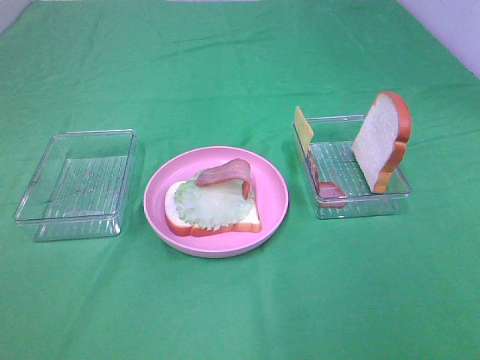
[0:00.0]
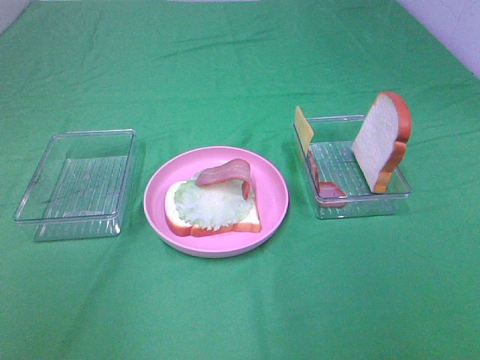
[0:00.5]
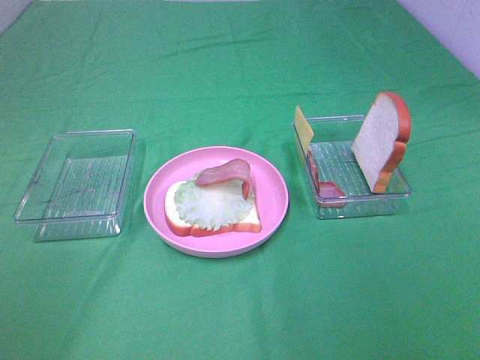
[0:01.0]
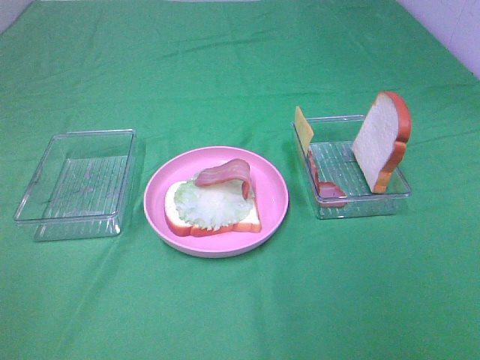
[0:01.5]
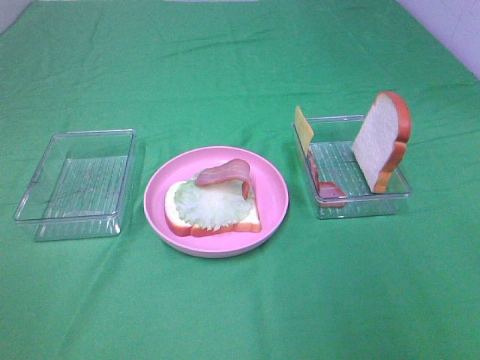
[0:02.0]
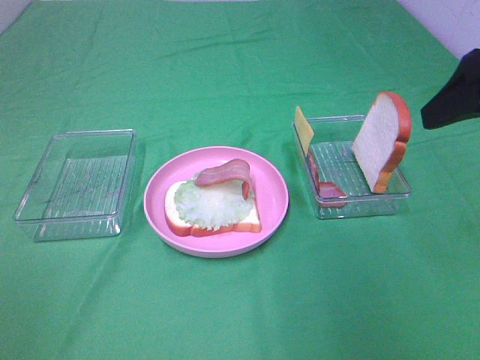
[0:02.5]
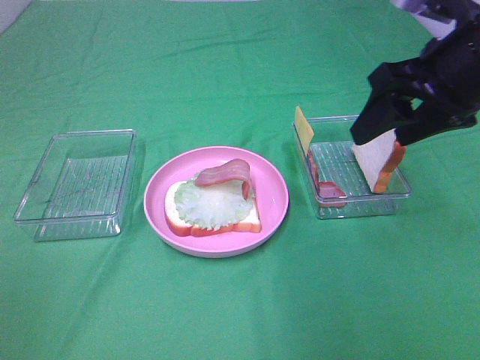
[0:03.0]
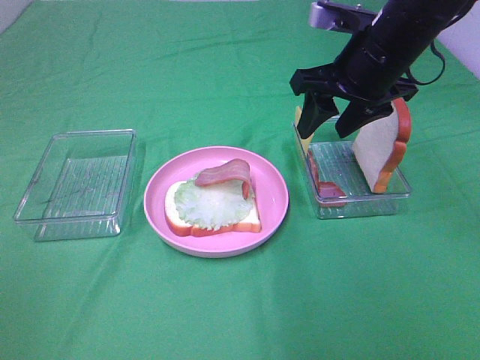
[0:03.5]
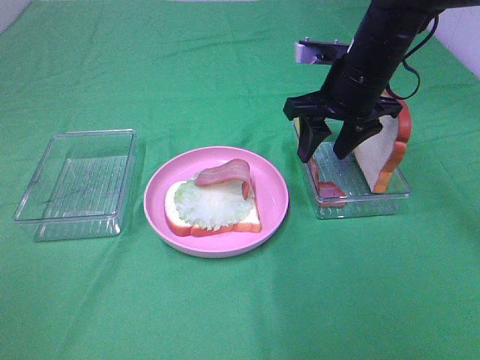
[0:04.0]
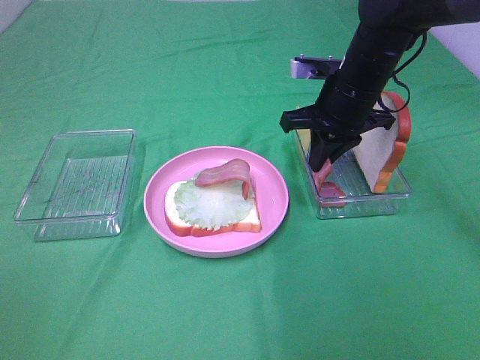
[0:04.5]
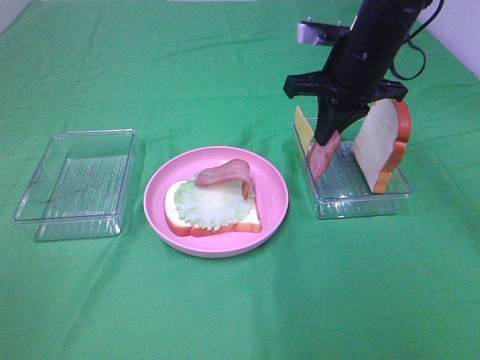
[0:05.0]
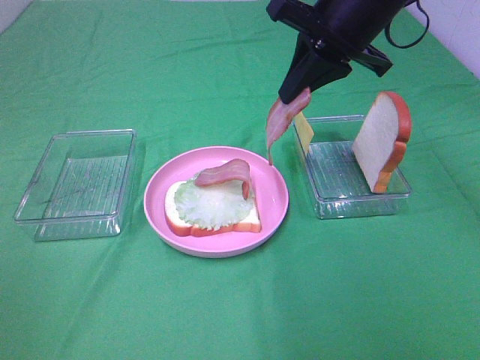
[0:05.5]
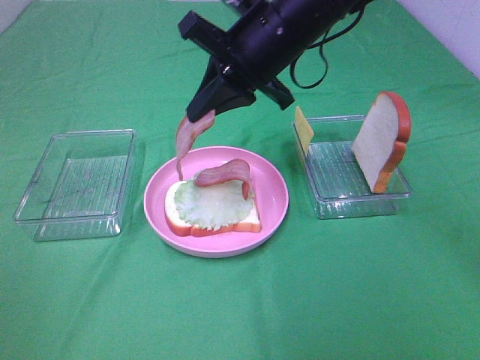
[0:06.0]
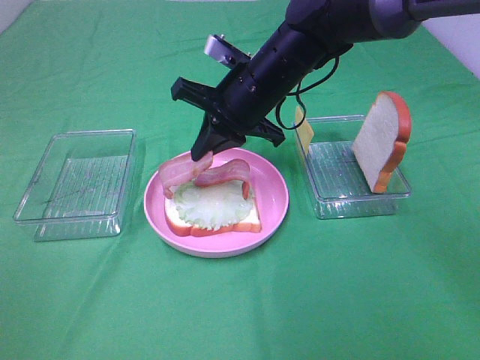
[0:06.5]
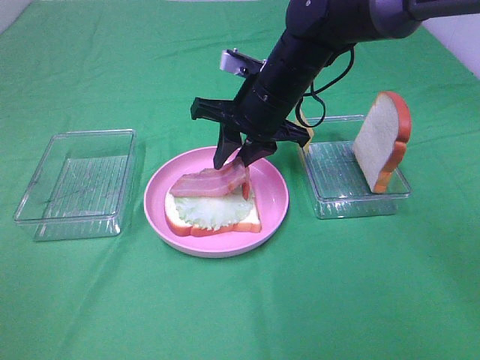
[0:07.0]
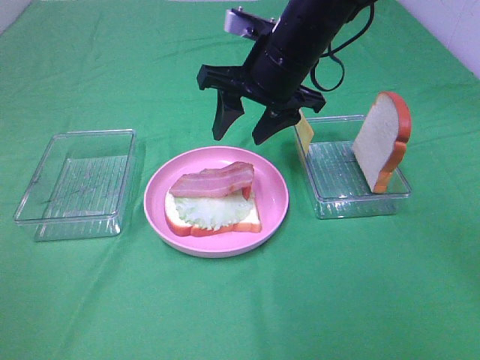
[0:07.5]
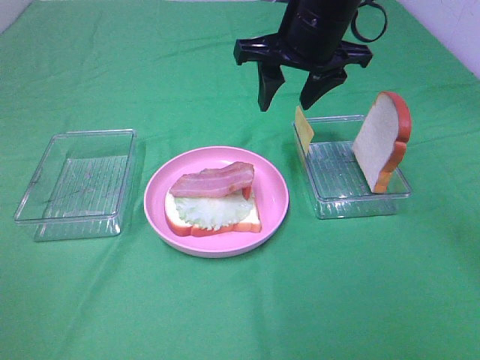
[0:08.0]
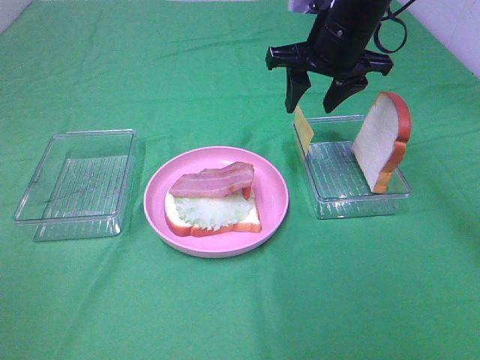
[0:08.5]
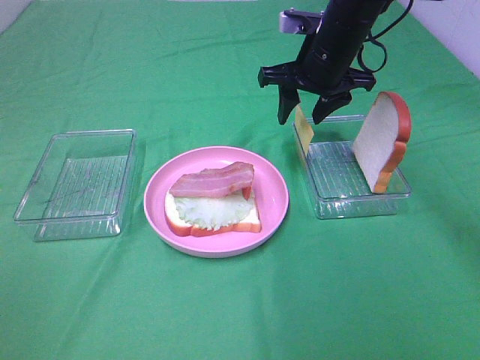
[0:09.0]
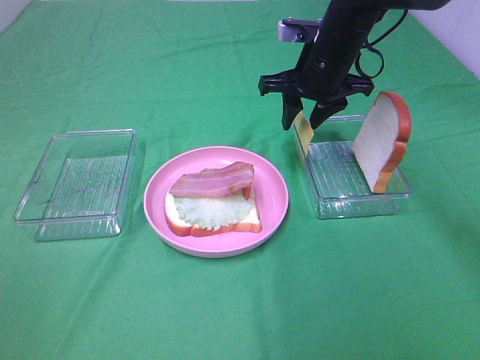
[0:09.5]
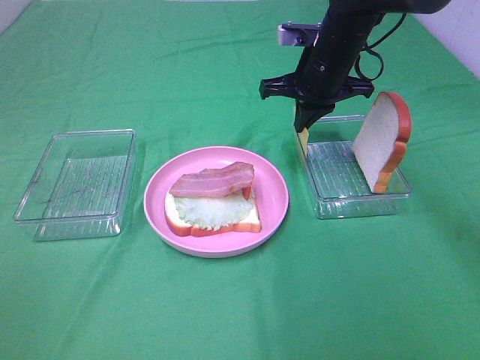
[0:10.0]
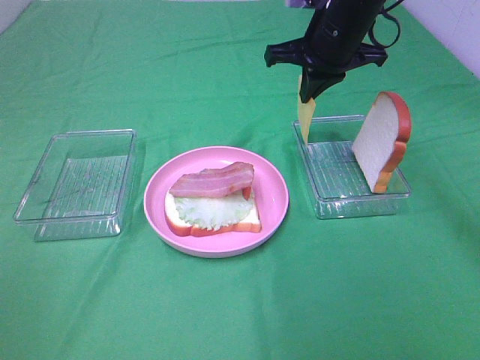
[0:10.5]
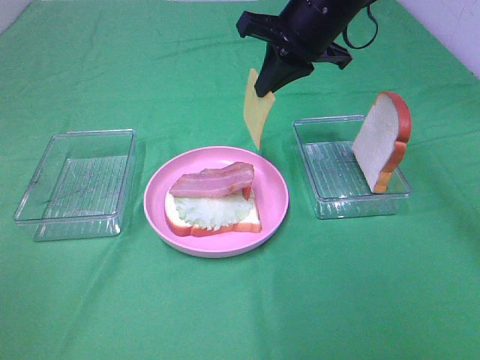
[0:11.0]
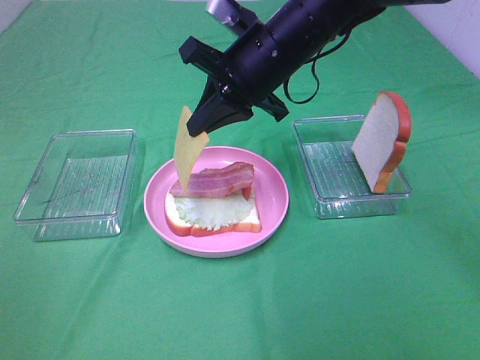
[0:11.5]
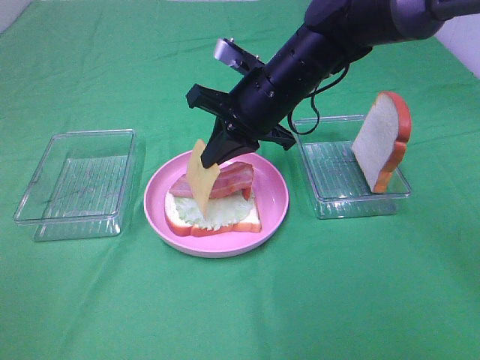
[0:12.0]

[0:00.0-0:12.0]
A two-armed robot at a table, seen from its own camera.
Task of the whole recording: Make sandwiches.
Step, 0:00.0 to 0:04.5: Right hand:grab the bacon.
Step, 0:05.0 to 0:07.0: Right hand:place bacon on bacon.
Step, 0:07.5 to 0:10.0: Right hand:grab the cheese slice.
0:02.0 to 0:04.0: The right gripper travels forward, to the left and downward by about 35 cm.
0:04.0 to 0:06.0: The right gripper is displaced to the left and upward by approximately 10 cm, and closes up.
0:06.0 to 0:08.0: The right gripper reaches approximately 10 cm downward, then returns, and opens its fingers.
0:08.0 to 0:10.0: The right gripper shifts about 10 cm downward and forward, and closes.
0:10.0 to 0:12.0: The right gripper heads backward and to the left, covering roughly 10 cm, and moves roughly 10 cm upward and comes back.

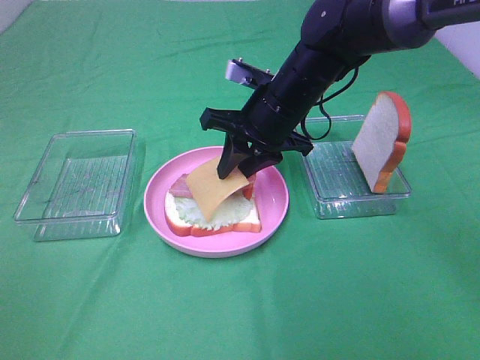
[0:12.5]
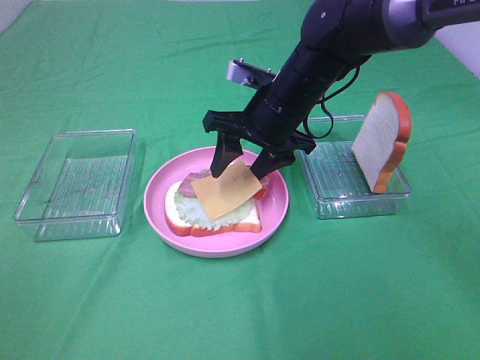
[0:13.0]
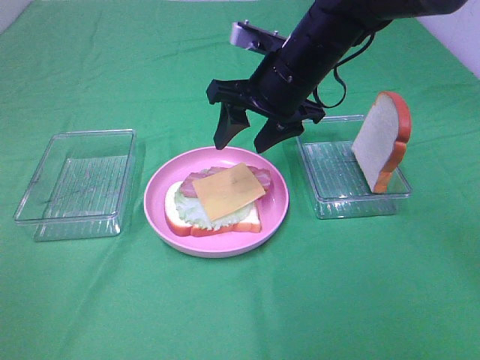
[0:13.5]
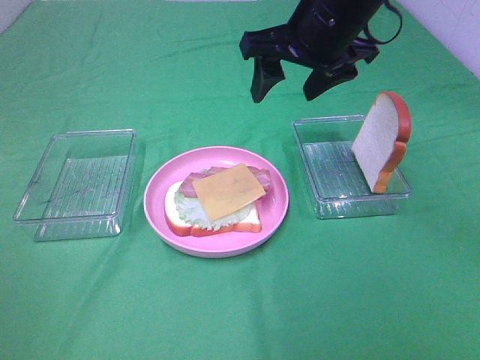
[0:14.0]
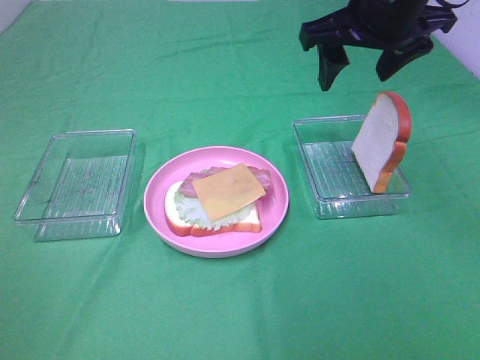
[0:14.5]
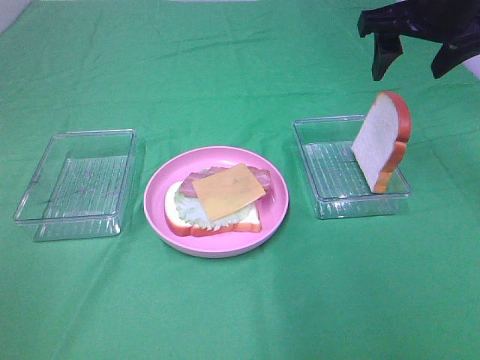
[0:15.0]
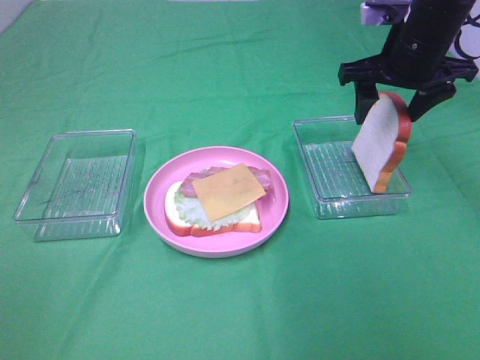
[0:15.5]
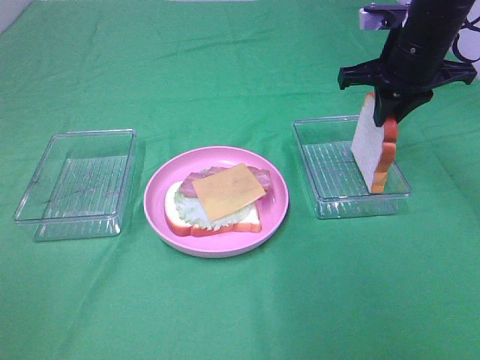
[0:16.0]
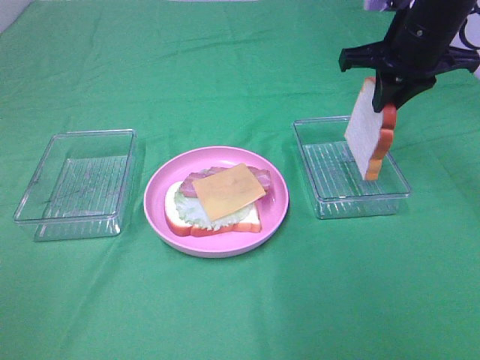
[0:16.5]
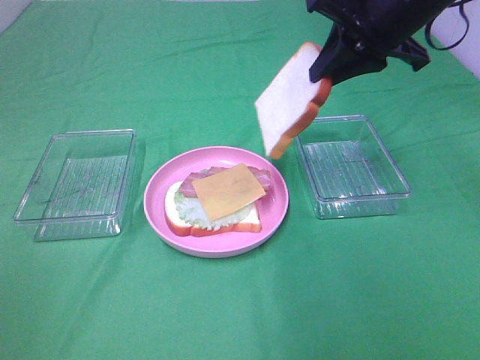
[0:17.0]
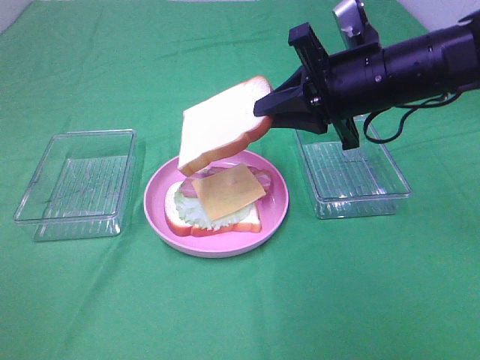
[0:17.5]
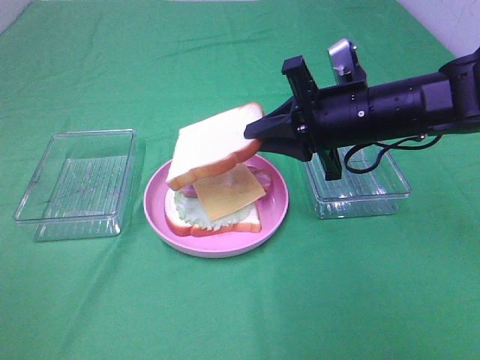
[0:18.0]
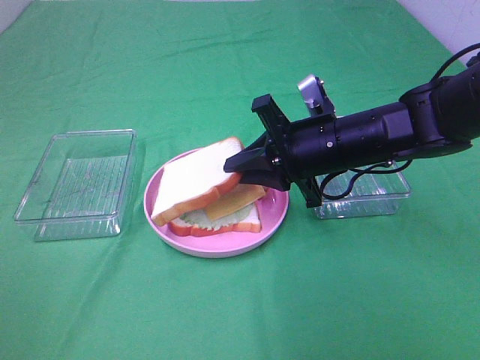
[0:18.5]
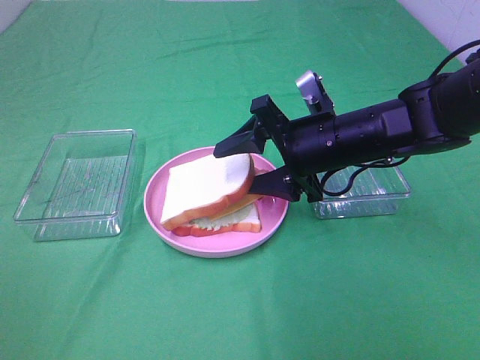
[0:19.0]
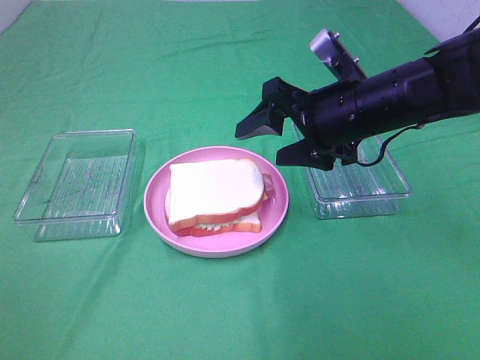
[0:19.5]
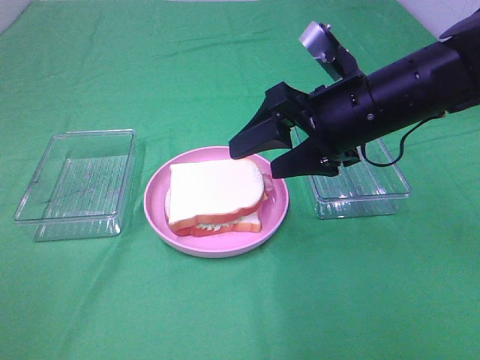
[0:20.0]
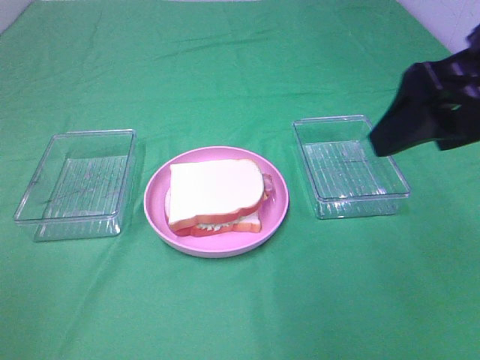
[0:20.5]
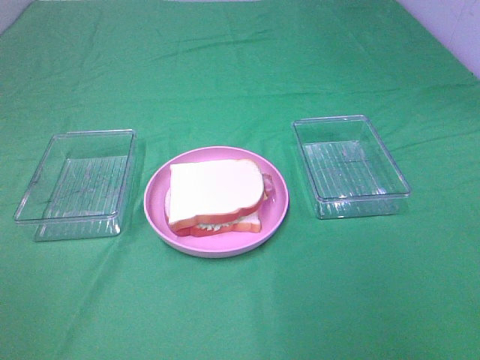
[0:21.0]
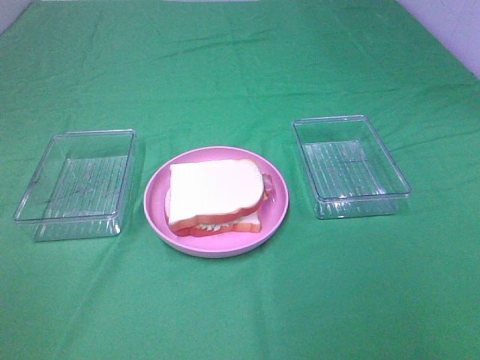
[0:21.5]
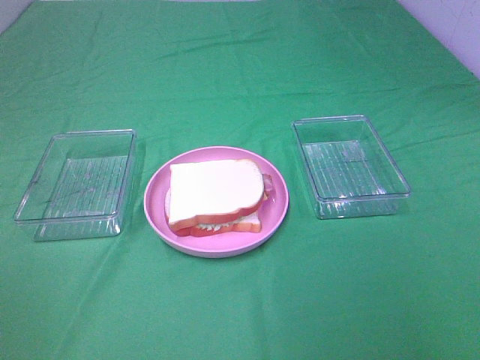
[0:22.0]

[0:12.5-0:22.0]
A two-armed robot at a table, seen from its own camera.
Task of the whole recording: Make sandwiches.
Step, 0:13.5 to 0:16.0: Right hand:grab the bread slice.
Step, 0:16.5 to 0:19.0: Right hand:place the bread slice on the cheese slice.
0:12.5 to 0:14.5: The right gripper shifts about 15 cm upward and to the right, and opens up.
0:14.5 to 0:16.5: The right gripper goes approximately 5 cm to the right, and closes.
0:16.5 to 0:18.0: The right gripper is displaced downward, backward and to the left by about 10 cm.
0:18.0 to 0:20.0: The right gripper shifts by roughly 5 cm, and opens up.
0:20.0 to 0:22.0: The right gripper travels backward and to the right by roughly 35 cm.

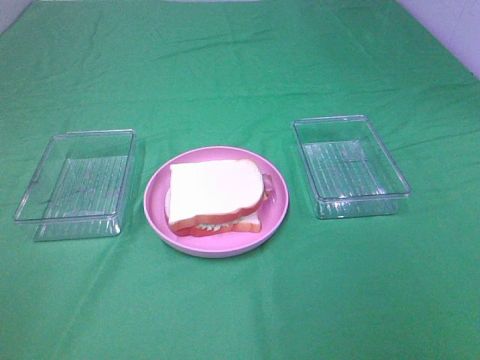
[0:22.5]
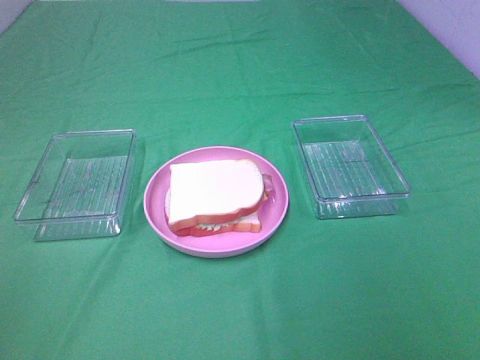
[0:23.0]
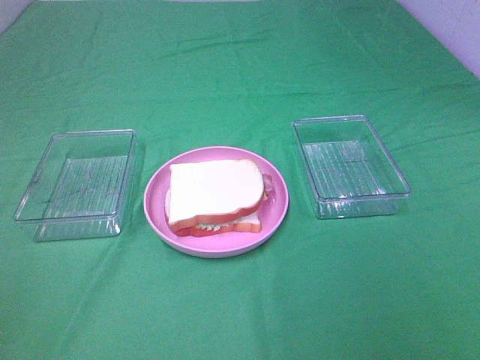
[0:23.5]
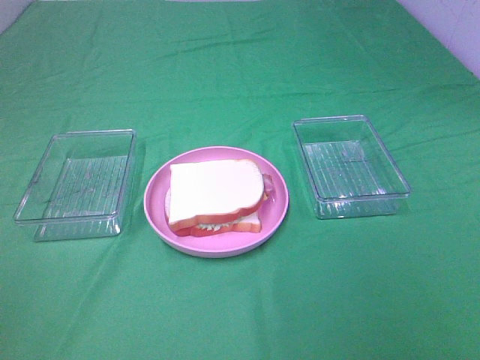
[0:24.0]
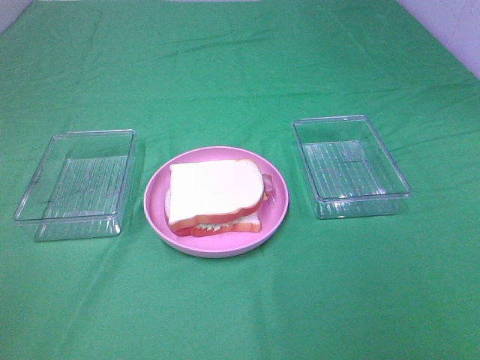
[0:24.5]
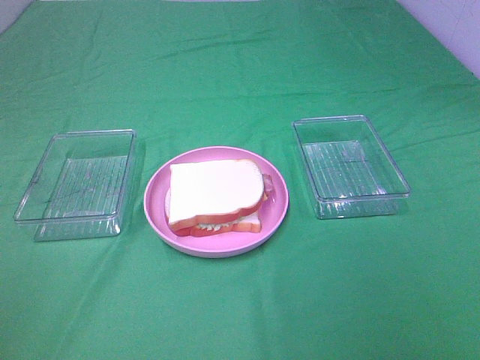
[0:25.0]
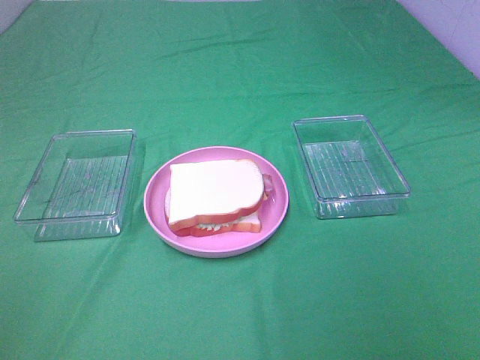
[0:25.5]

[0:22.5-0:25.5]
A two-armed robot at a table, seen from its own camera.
Task of the whole recording: Make sandwiches.
0:24.0 to 0:25.5: Both grippers stay about where they are.

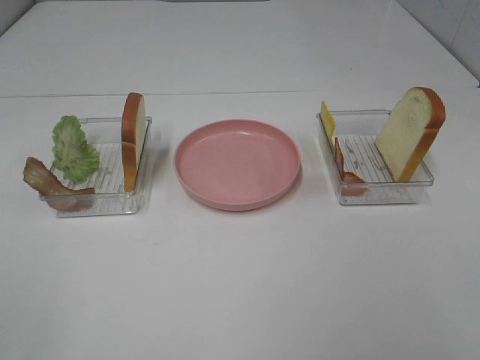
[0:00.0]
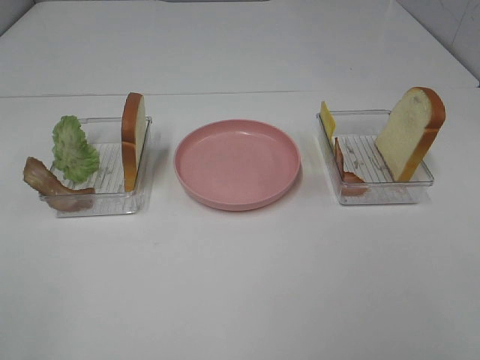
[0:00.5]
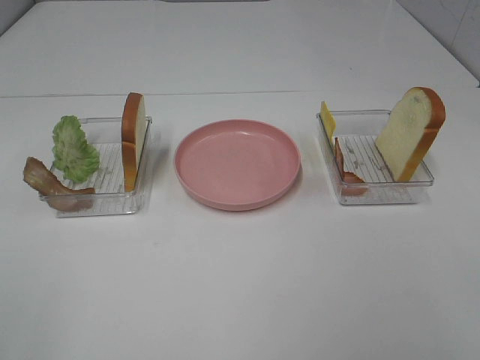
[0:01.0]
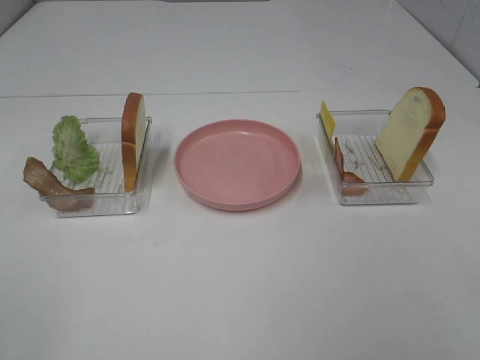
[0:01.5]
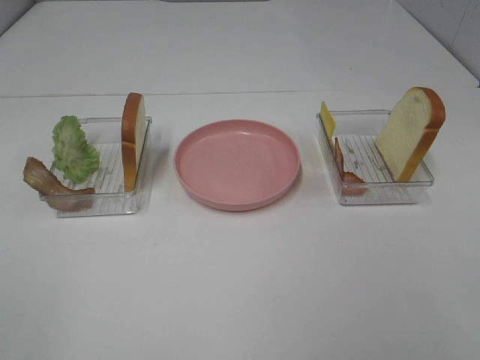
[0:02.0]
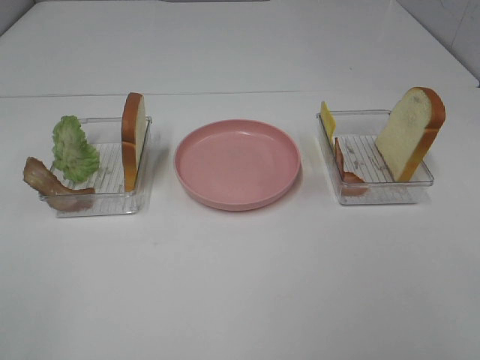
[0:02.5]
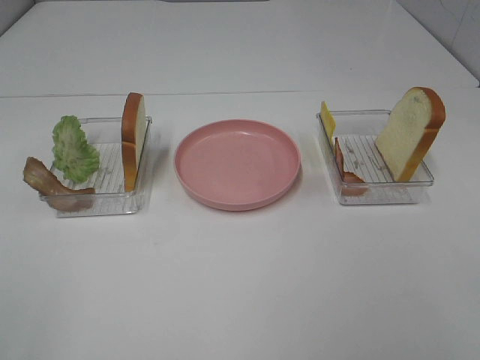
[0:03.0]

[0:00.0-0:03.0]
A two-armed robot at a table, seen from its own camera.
Task of the whole recording: Make sandwiches.
0:00.0 to 0:03.0: Neither gripper changes place.
